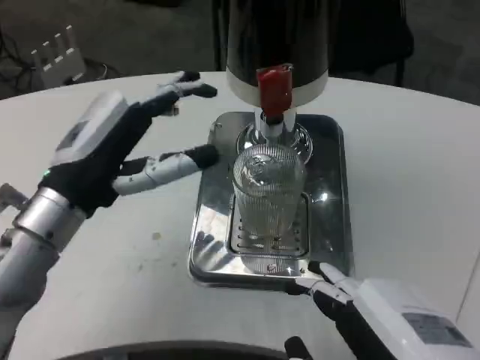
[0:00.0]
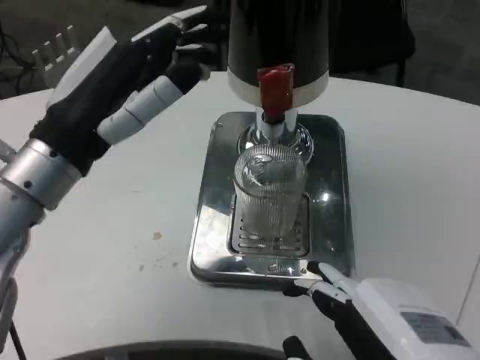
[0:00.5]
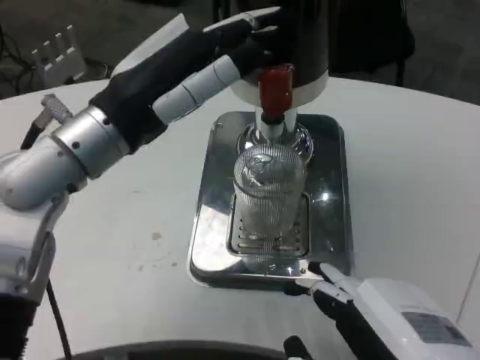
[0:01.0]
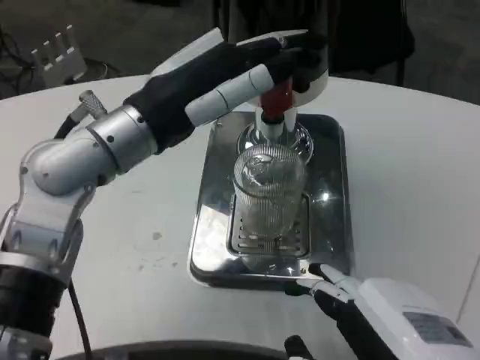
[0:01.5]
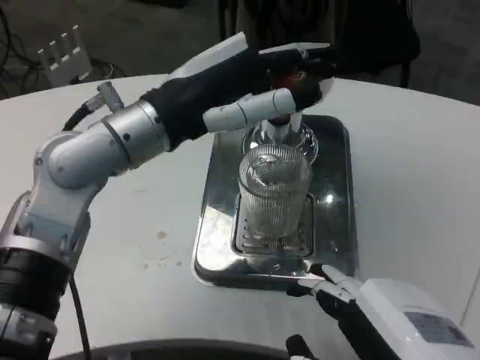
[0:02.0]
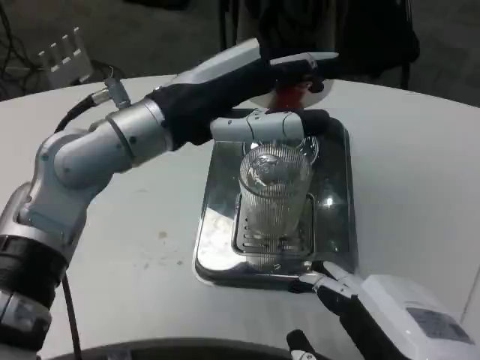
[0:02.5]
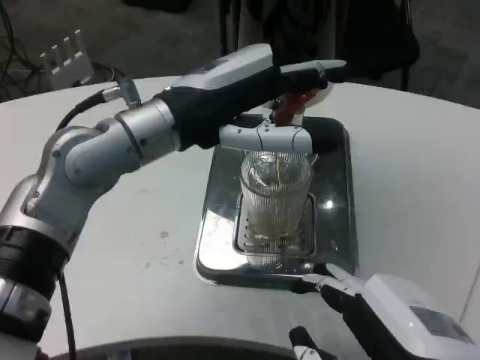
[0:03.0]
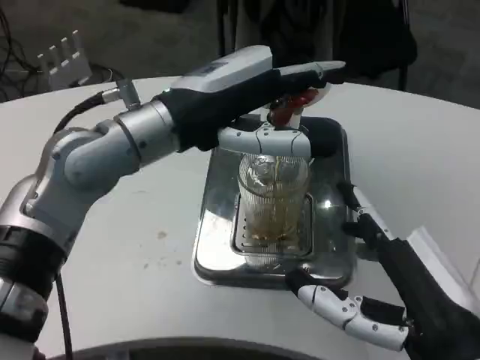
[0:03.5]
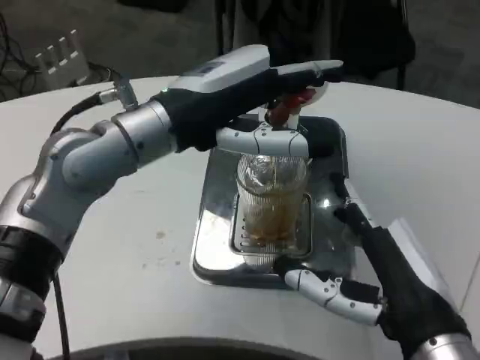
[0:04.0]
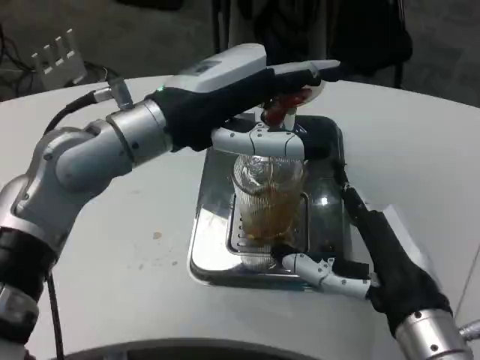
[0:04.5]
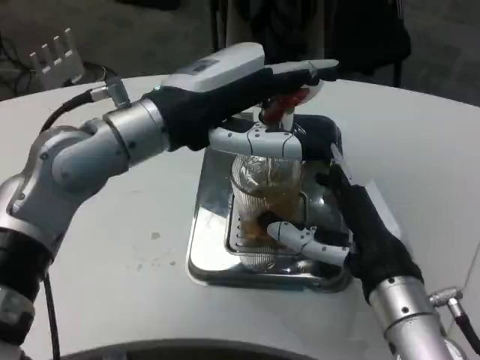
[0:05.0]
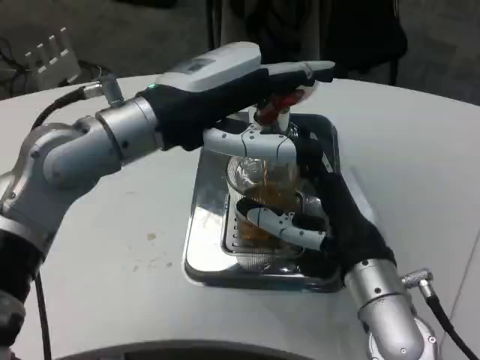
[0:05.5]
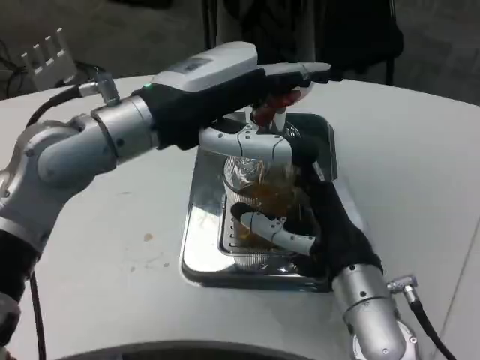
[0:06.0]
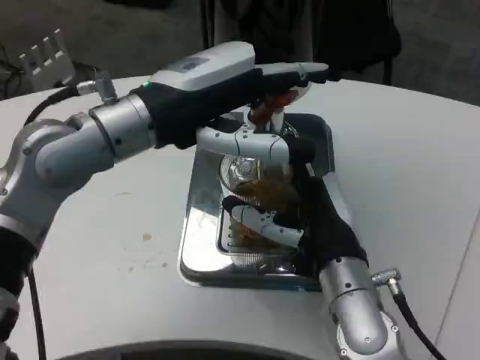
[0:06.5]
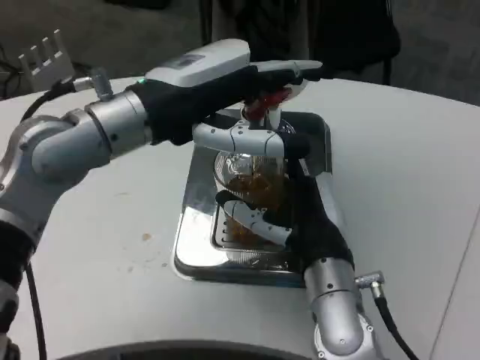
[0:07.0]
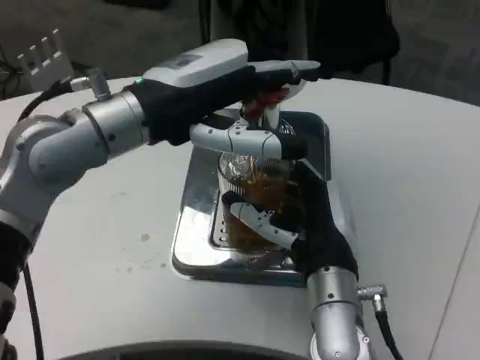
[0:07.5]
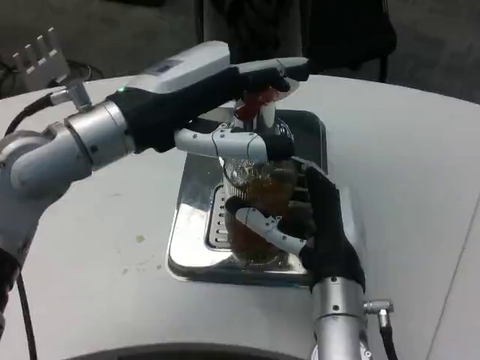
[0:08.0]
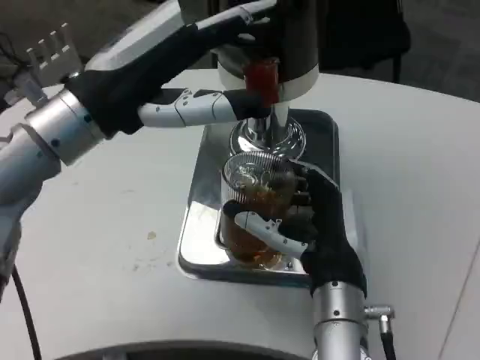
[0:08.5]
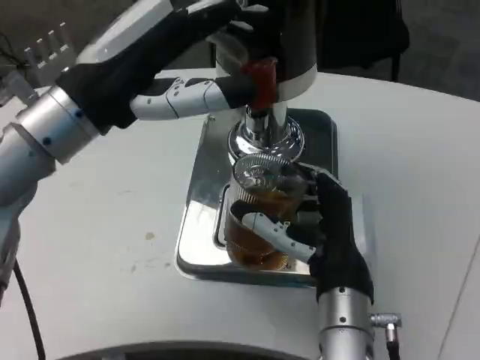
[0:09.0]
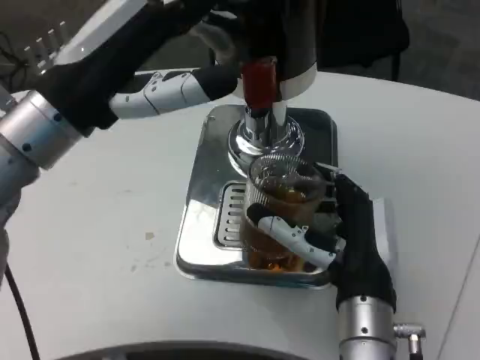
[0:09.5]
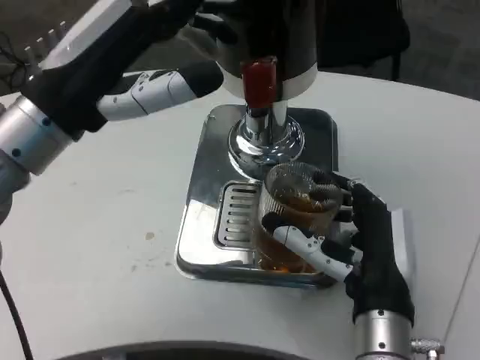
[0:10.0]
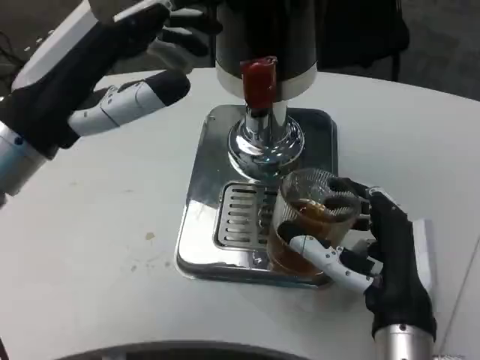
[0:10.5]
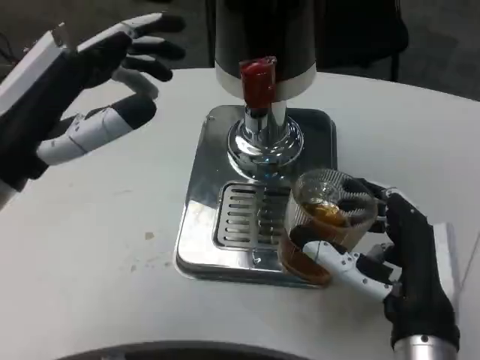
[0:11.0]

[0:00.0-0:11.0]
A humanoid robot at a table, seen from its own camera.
Task of the whole recording: Grasp the cup under the faucet to collect the drink, then remove the cup.
0:00.0 to 0:02.0: The left hand moves upward and to the right, about 10 cm.
0:03.5 to 0:05.5: The right hand moves forward, approximately 10 cm.
0:05.5 to 0:07.5: The right hand changes place by about 5 cm.
0:09.0 to 0:11.0: The left hand travels to the left by roughly 5 cm. The right hand heads backward and to the right, covering about 10 cm.

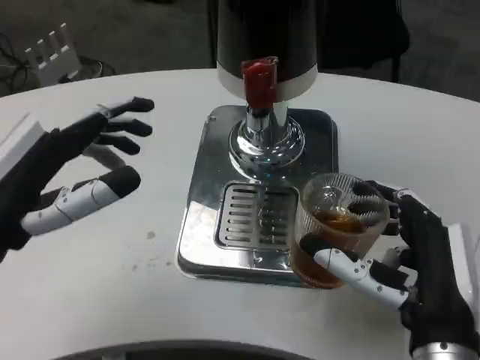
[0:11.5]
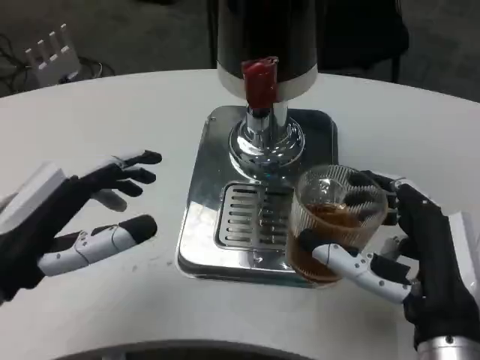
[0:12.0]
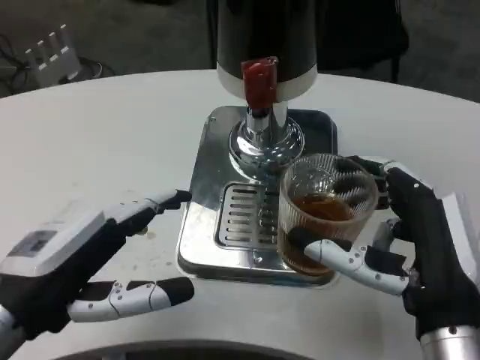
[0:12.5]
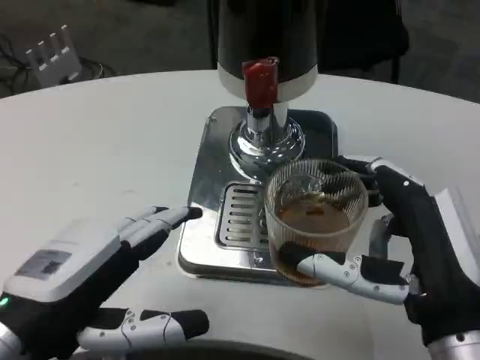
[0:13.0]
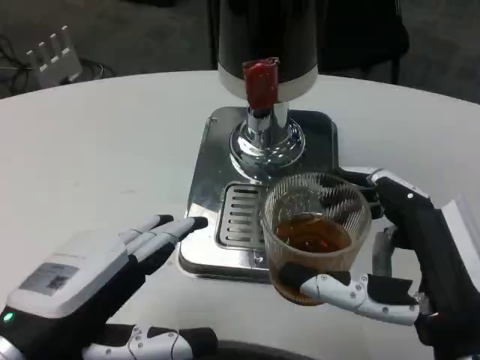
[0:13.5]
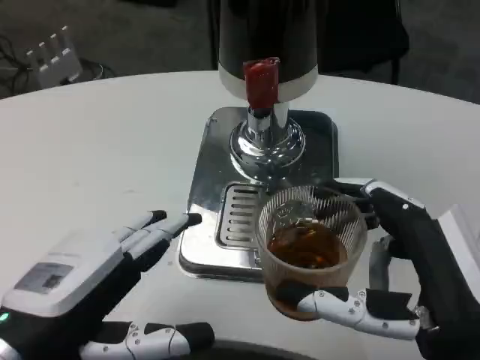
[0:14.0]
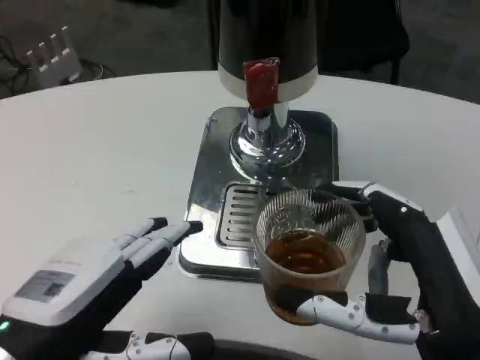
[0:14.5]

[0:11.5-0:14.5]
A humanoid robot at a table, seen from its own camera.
Task of the whole recording: Grasp the cup under the faucet to collect the drink, then remove the cup.
0:11.5 to 0:13.0: The left hand moves roughly 5 cm.

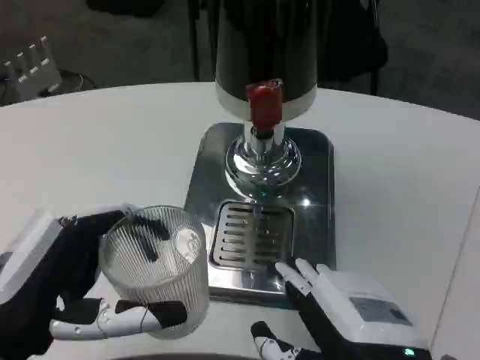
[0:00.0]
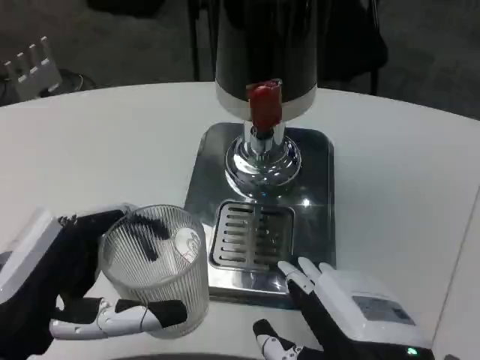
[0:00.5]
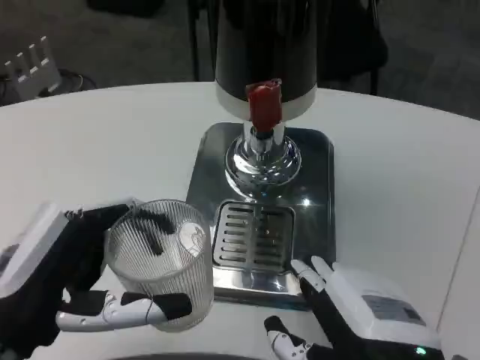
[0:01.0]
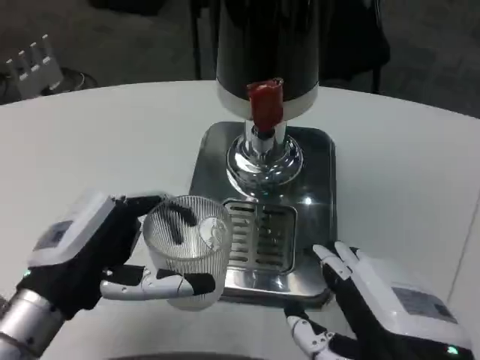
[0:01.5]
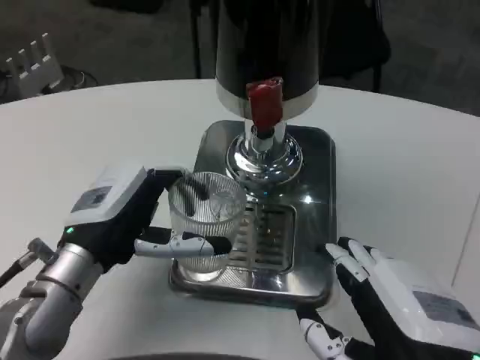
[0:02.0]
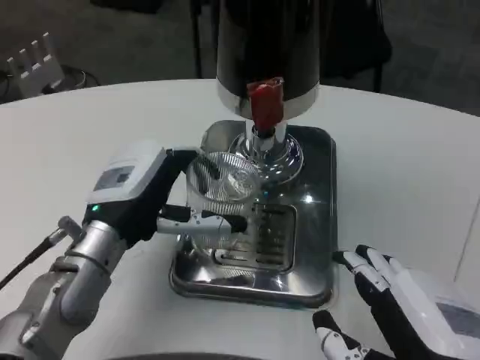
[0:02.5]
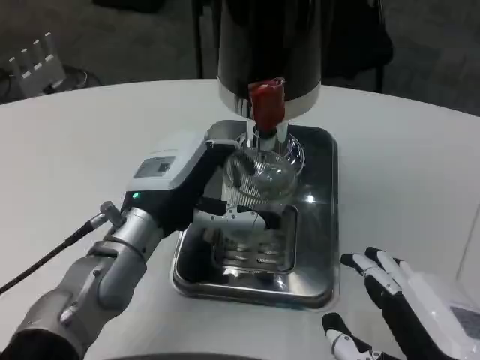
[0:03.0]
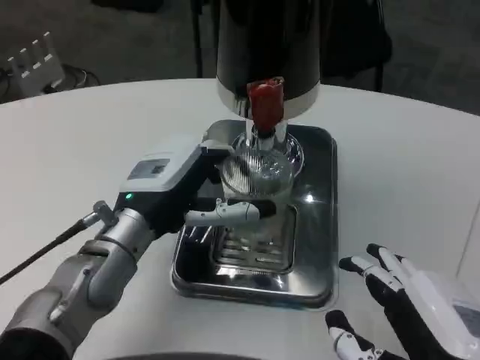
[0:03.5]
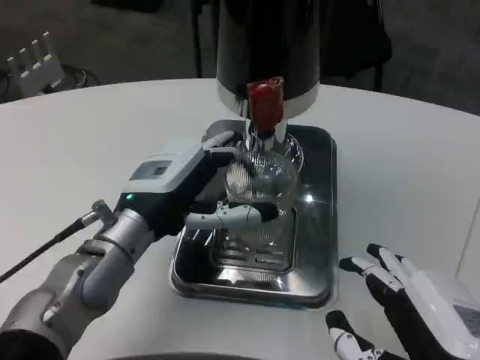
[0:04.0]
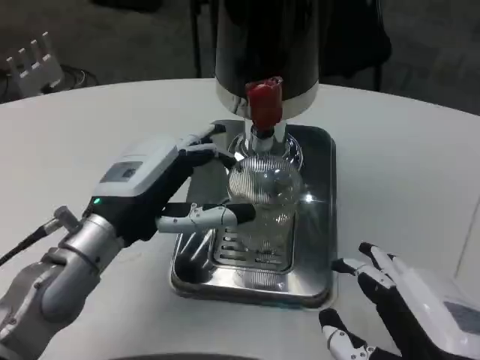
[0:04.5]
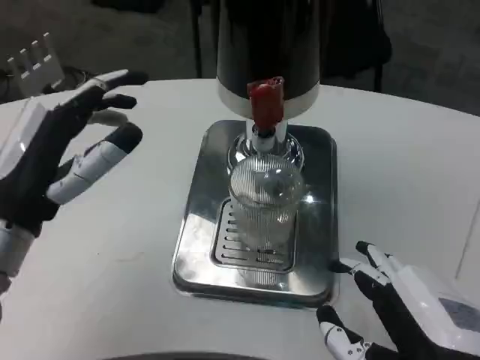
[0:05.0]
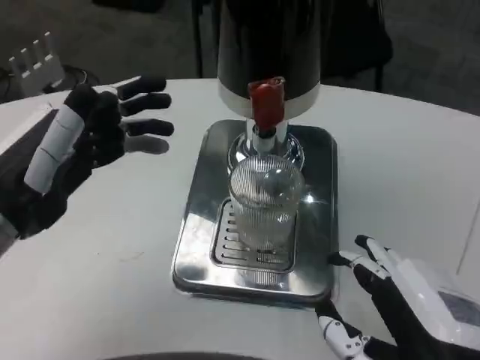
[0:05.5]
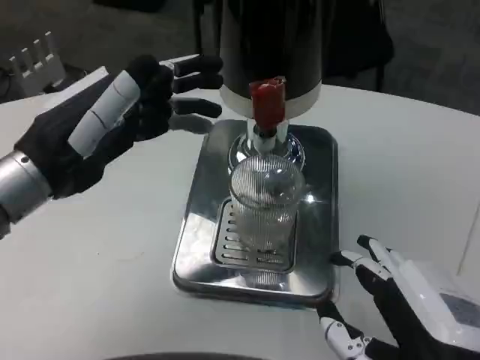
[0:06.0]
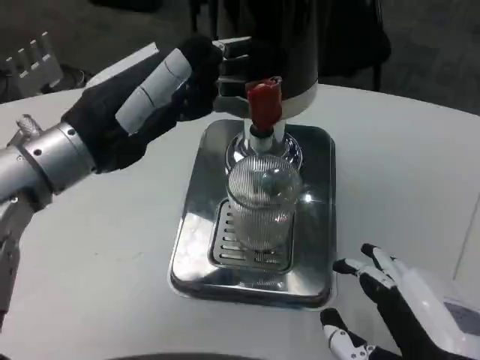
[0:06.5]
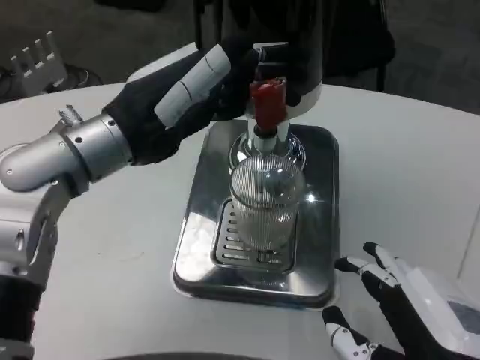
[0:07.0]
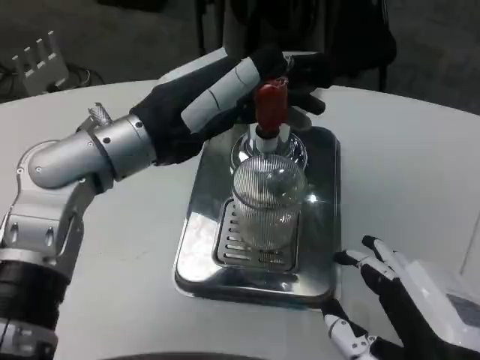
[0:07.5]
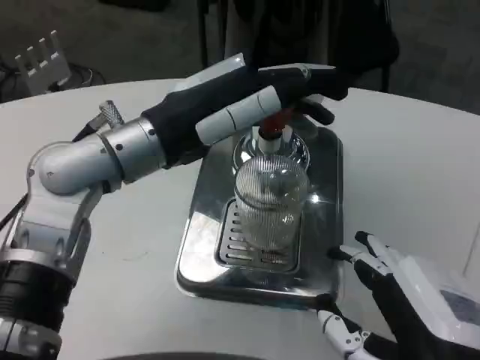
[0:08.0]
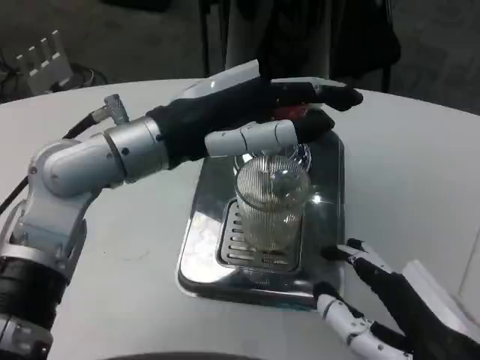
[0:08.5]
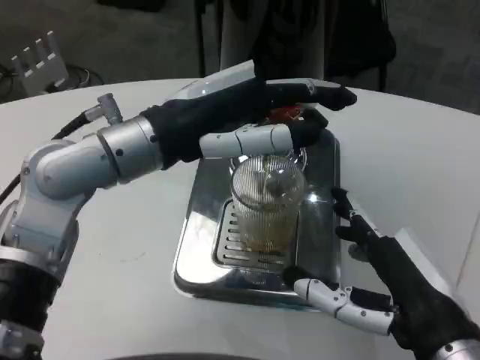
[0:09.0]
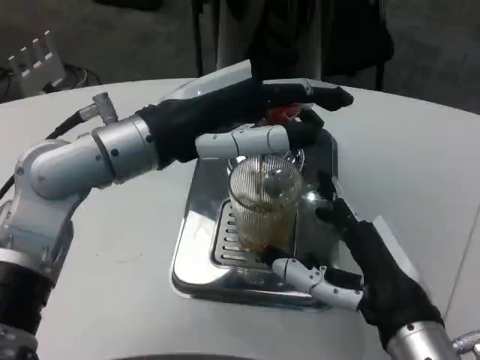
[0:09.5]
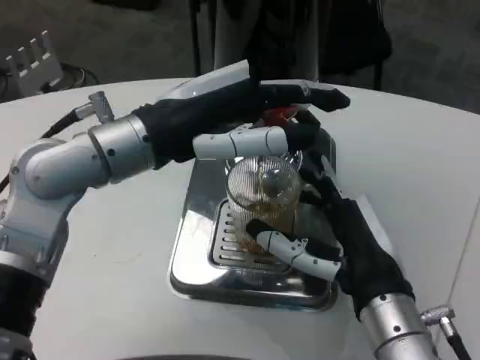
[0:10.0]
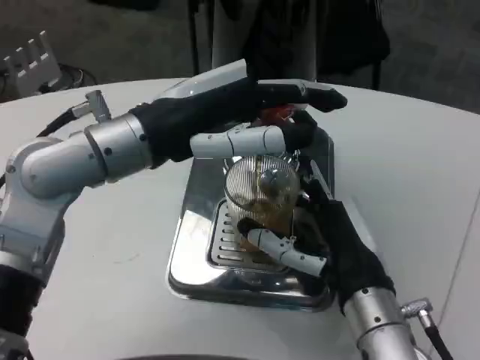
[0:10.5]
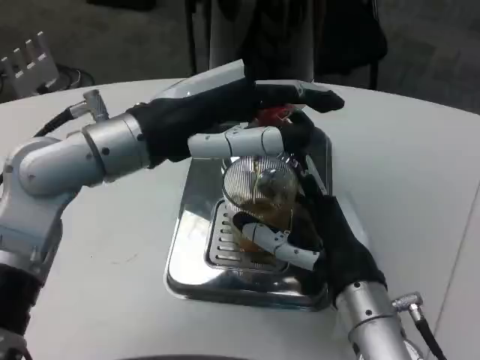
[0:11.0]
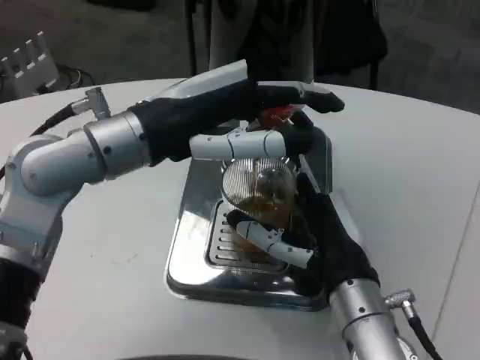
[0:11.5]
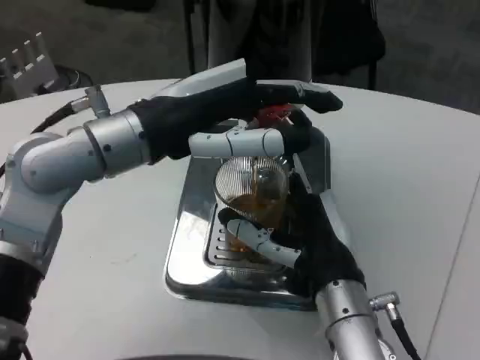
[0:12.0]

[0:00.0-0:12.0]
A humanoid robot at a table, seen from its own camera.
Task of the whole recording: Grasp the cup under the faucet to collect the drink, then remove the cup.
0:00.0 to 0:02.0: The left hand goes roughly 10 cm forward.
0:02.0 to 0:04.0: The left hand changes place by some 5 cm.
0:04.0 to 0:06.0: The left hand heads upward and to the left, covering roughly 10 cm.
0:06.0 to 0:08.0: The left hand is displaced to the right by approximately 10 cm.
0:08.0 to 0:10.0: The right hand is displaced forward by about 10 cm.
0:10.0 to 0:12.0: The right hand moves approximately 5 cm.
